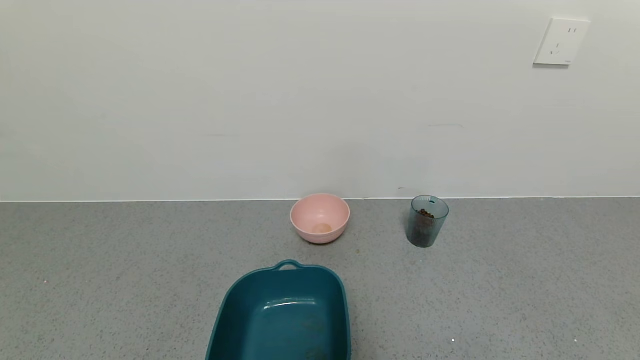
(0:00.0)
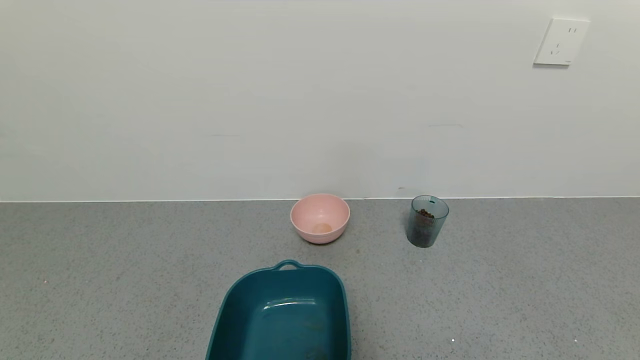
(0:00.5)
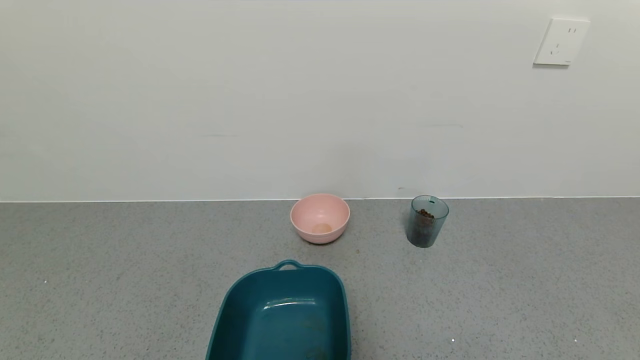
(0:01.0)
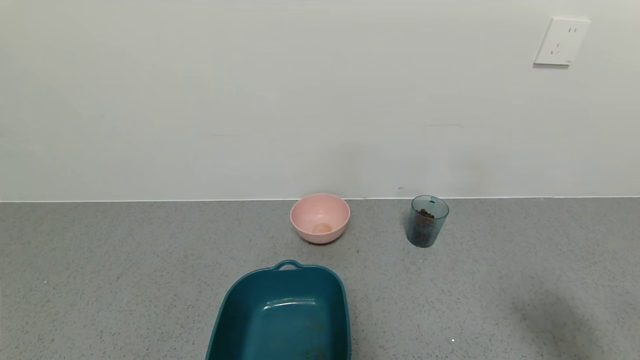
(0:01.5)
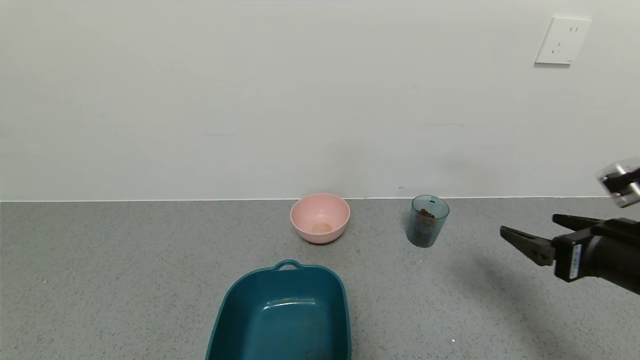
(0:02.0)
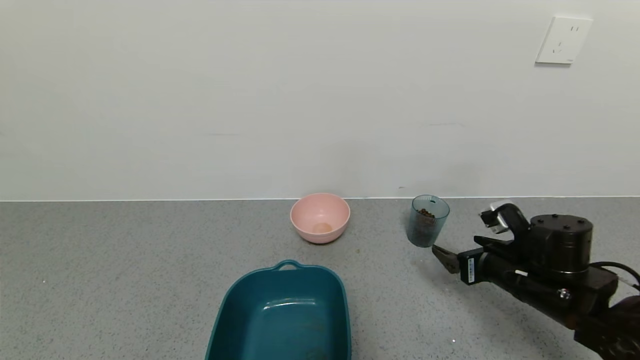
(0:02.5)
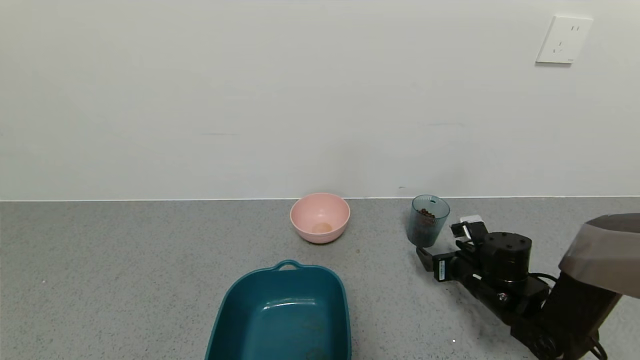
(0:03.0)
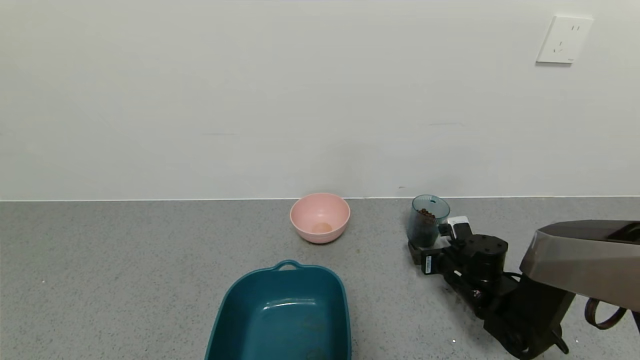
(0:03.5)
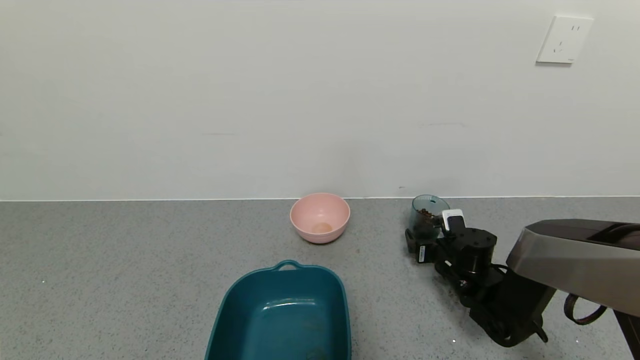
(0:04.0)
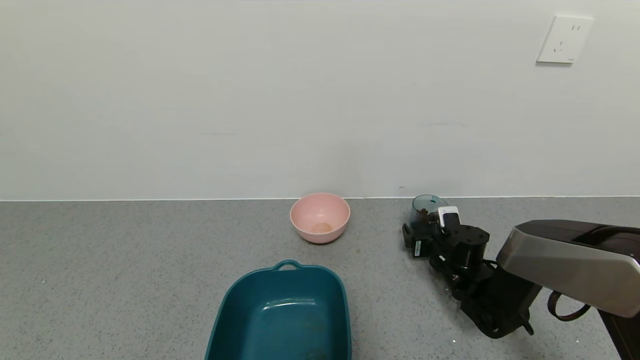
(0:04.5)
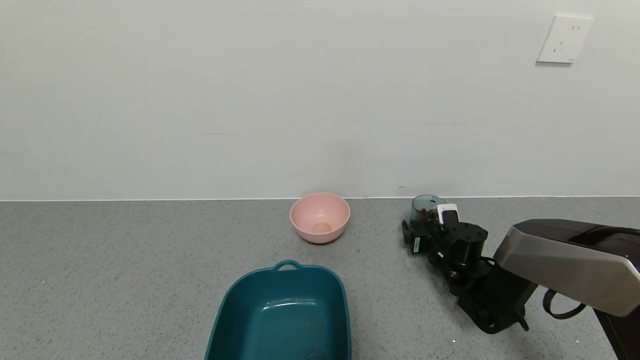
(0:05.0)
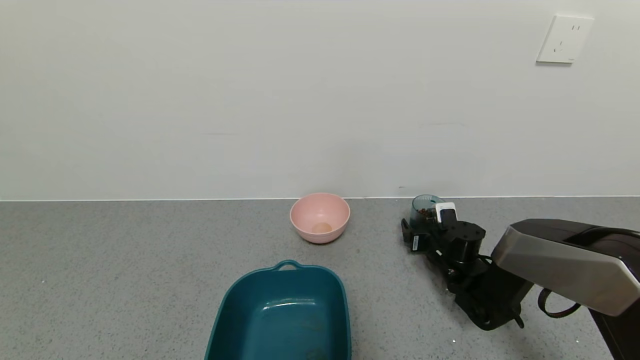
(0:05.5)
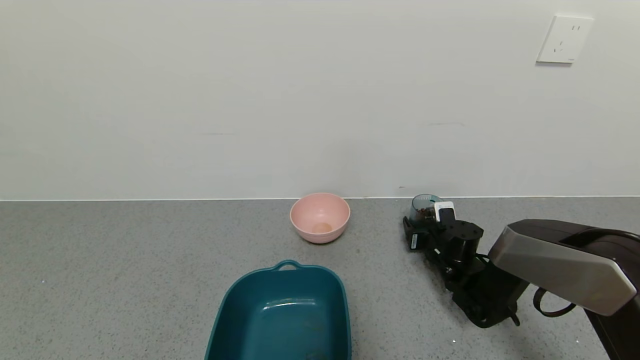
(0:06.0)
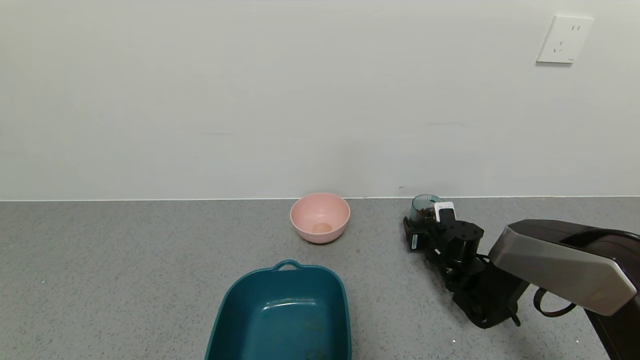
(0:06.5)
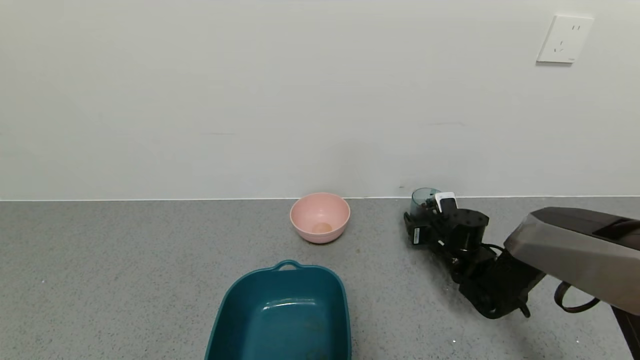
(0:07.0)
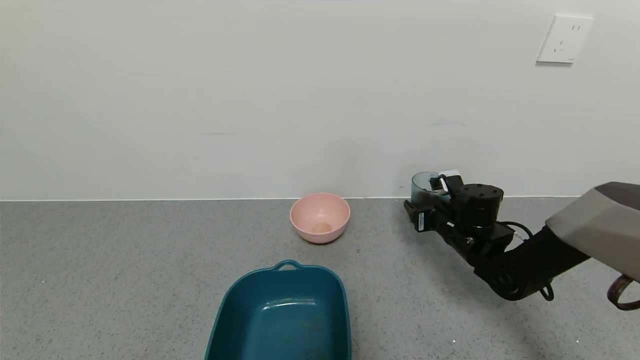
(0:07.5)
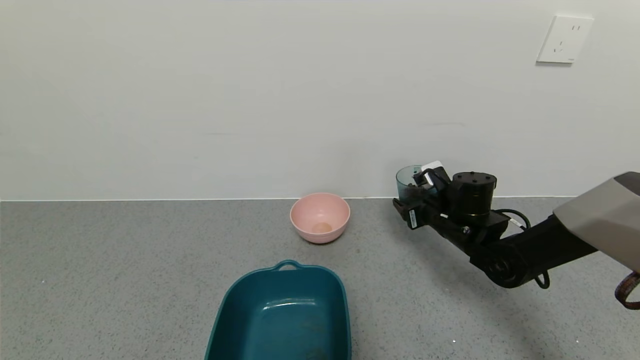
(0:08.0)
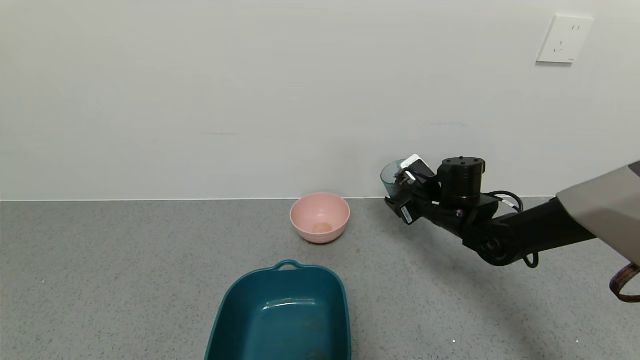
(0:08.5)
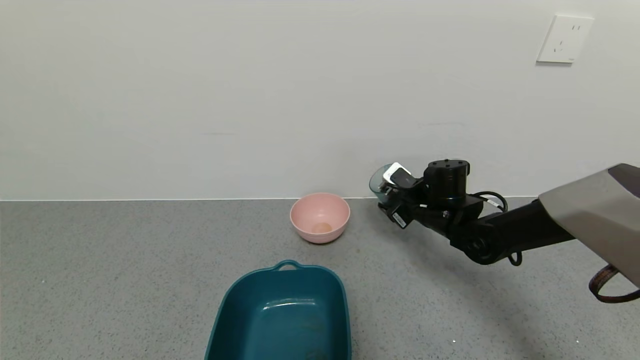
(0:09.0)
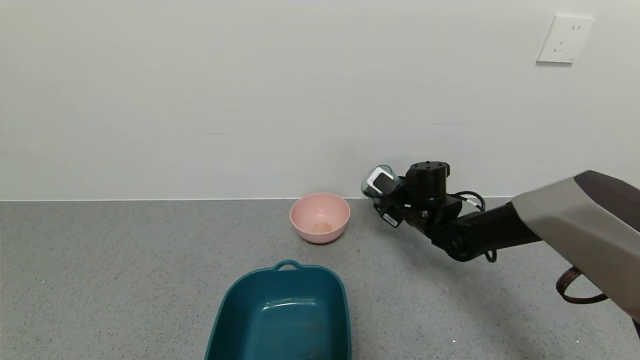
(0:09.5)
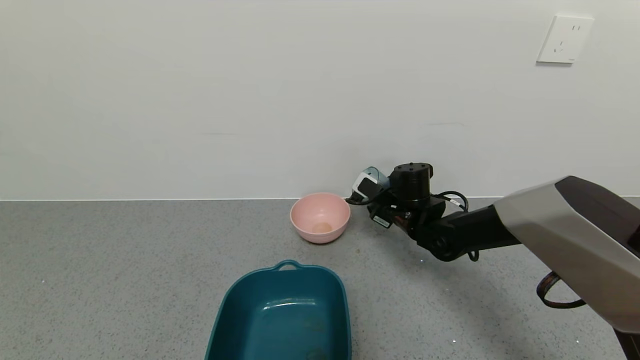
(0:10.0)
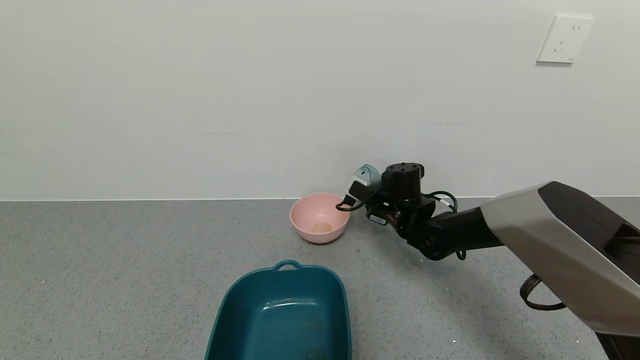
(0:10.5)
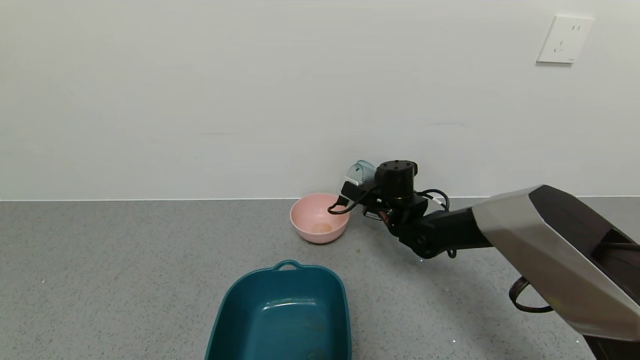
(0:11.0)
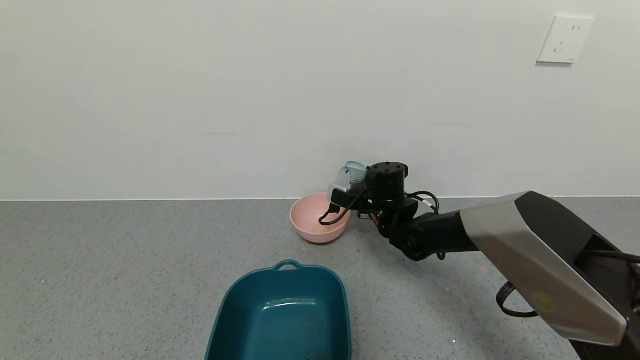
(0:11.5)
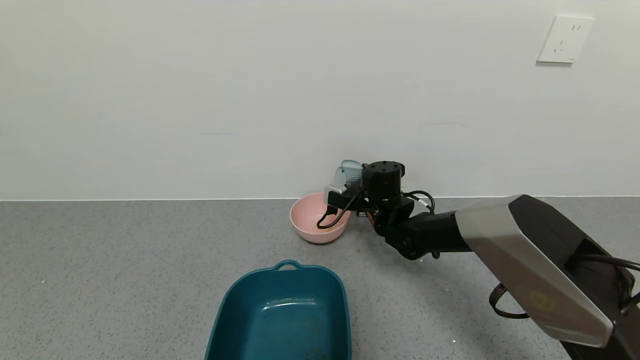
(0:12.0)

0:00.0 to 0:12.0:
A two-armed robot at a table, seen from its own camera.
Task of the whole recording: use a gripper to pick up the cup and pour the solid into a bowl or tray.
Step, 0:00.0 to 0:06.5: Grasp the glass of coffee beans with the right gripper.
0:00.0 to 0:02.0: The right gripper shifts roughly 25 cm forward and upward.
0:02.0 to 0:04.0: The right gripper is displaced downward, forward and to the left by about 25 cm.
0:04.0 to 0:06.0: The right gripper closes.
0:06.0 to 0:08.0: The right gripper travels upward by roughly 10 cm.
0:08.0 to 0:10.0: The right gripper moves to the left, roughly 5 cm.
0:10.0 to 0:12.0: The right gripper heads to the left, covering some 5 cm.

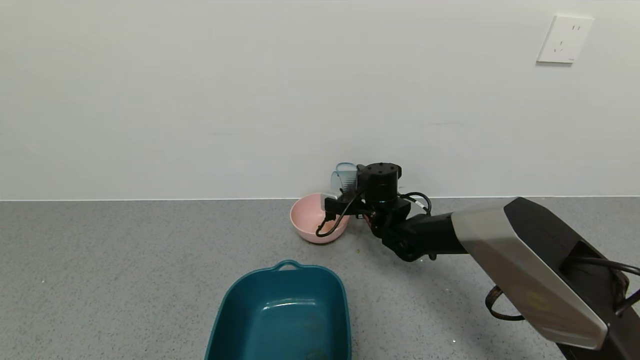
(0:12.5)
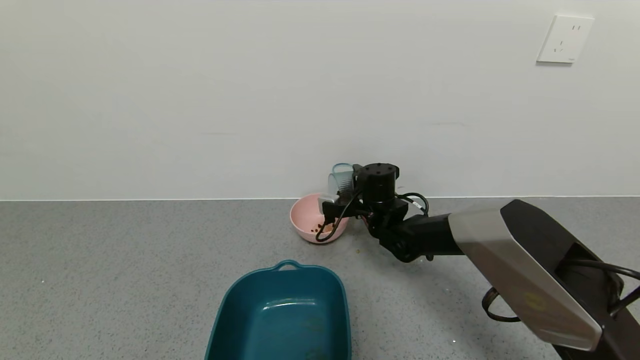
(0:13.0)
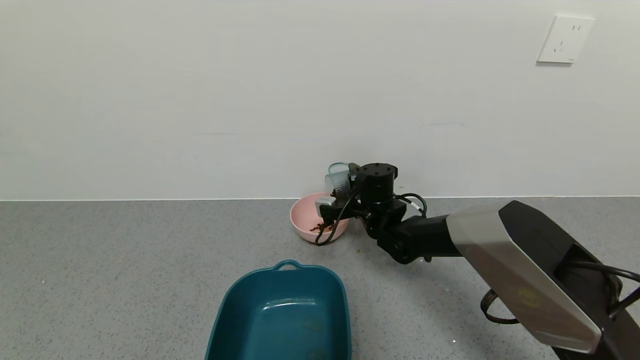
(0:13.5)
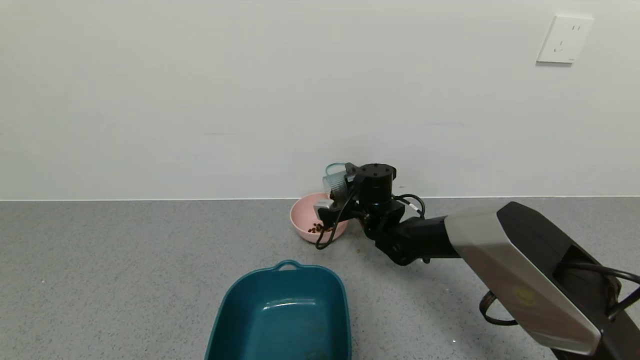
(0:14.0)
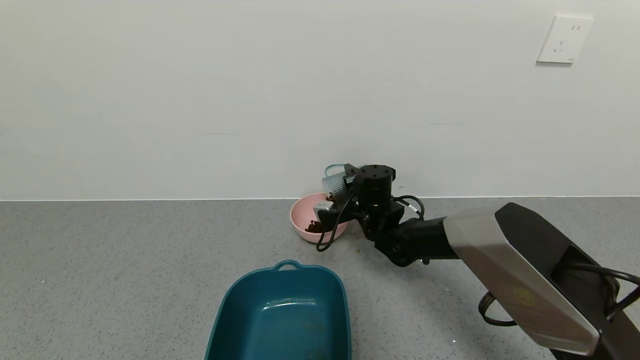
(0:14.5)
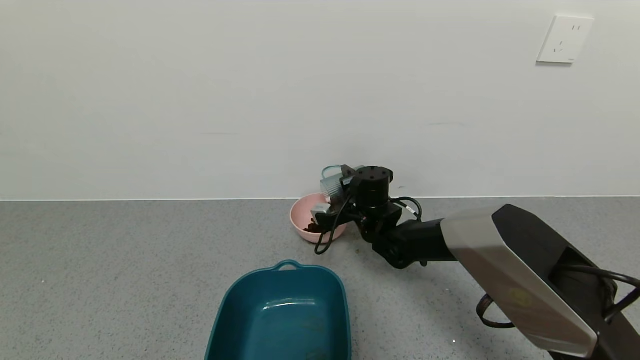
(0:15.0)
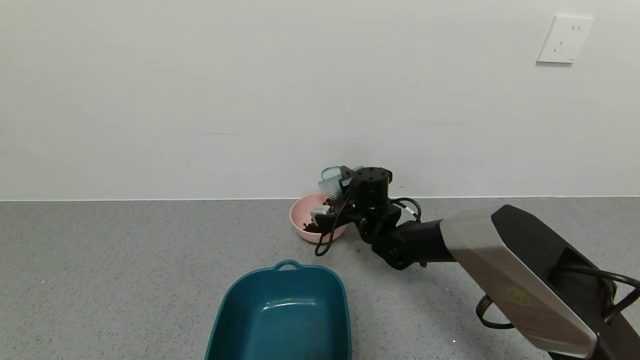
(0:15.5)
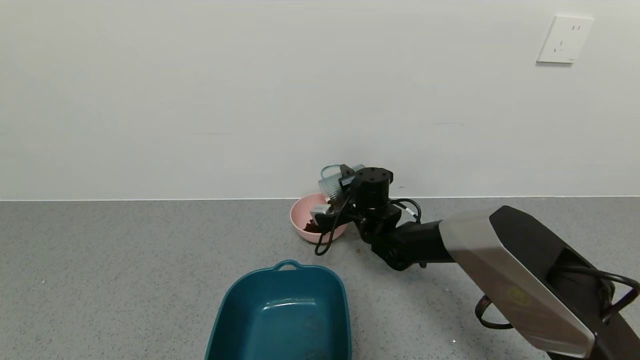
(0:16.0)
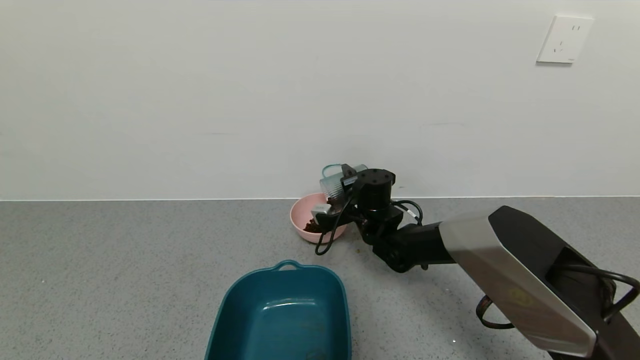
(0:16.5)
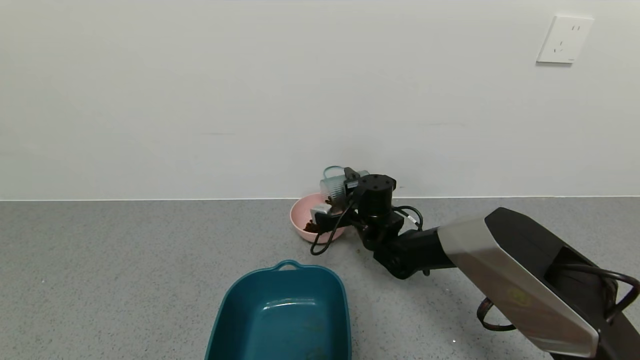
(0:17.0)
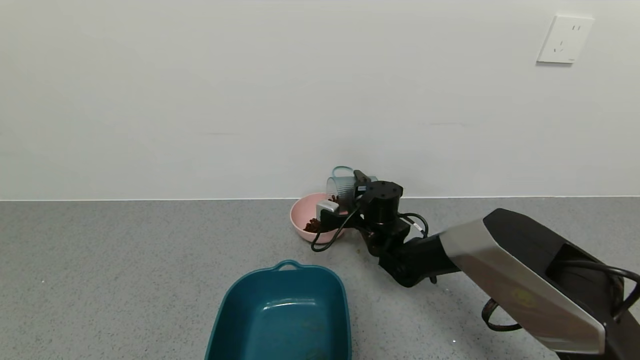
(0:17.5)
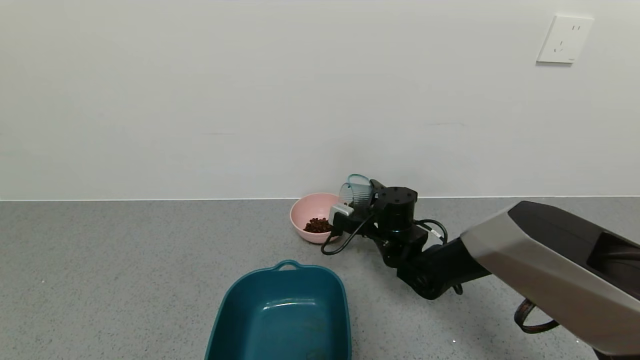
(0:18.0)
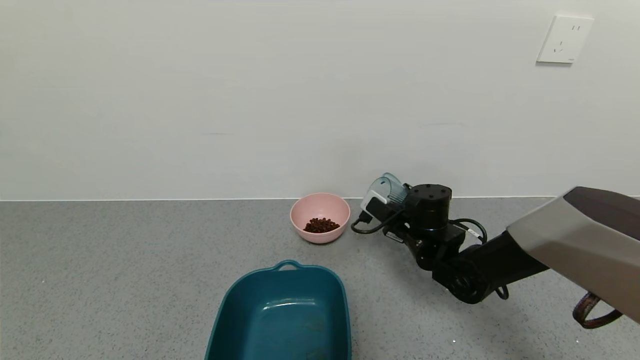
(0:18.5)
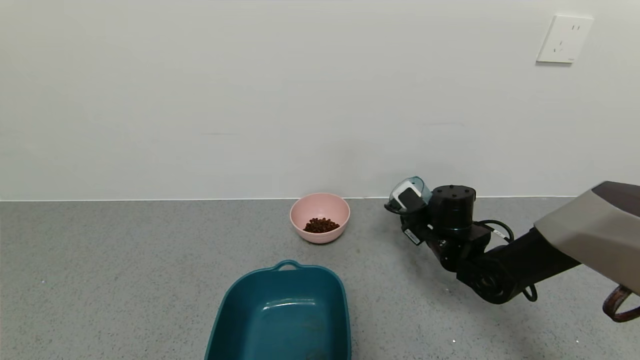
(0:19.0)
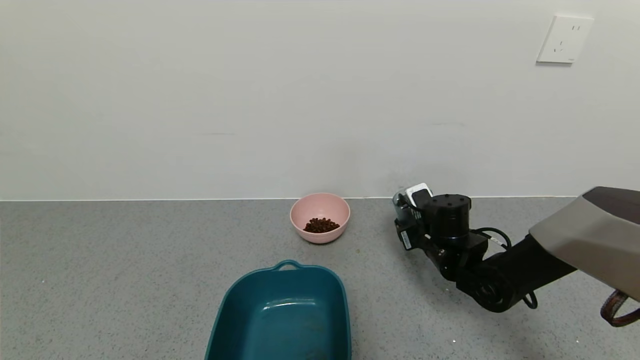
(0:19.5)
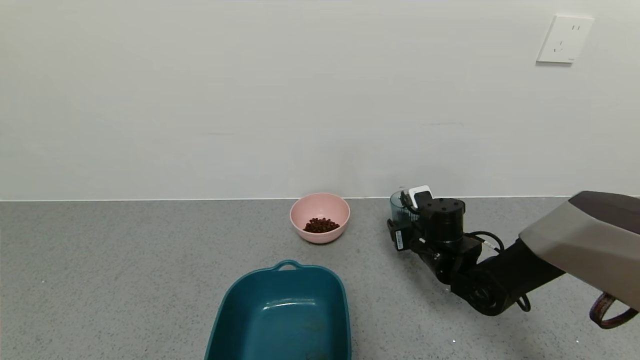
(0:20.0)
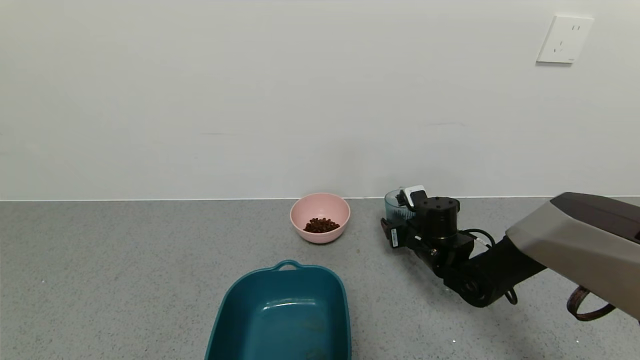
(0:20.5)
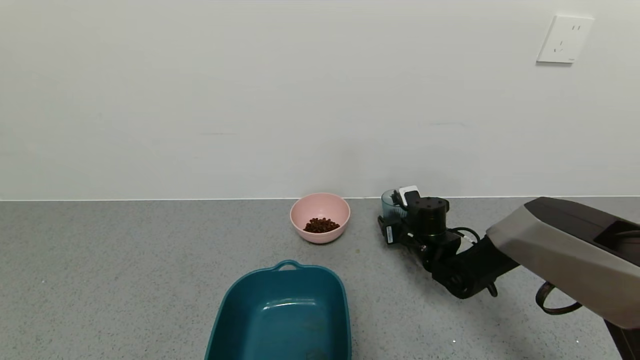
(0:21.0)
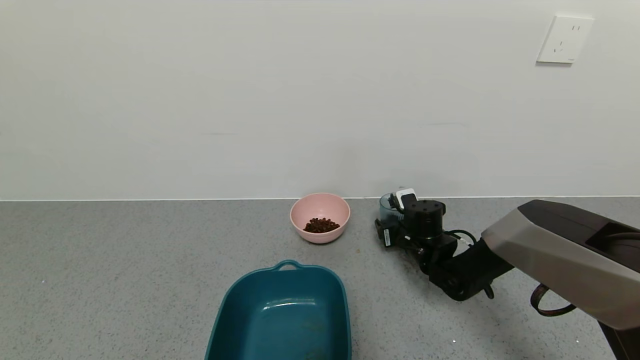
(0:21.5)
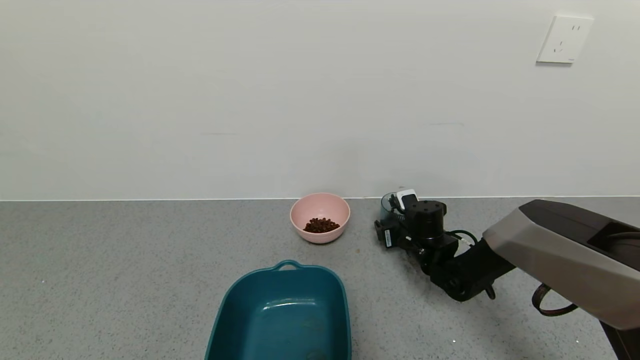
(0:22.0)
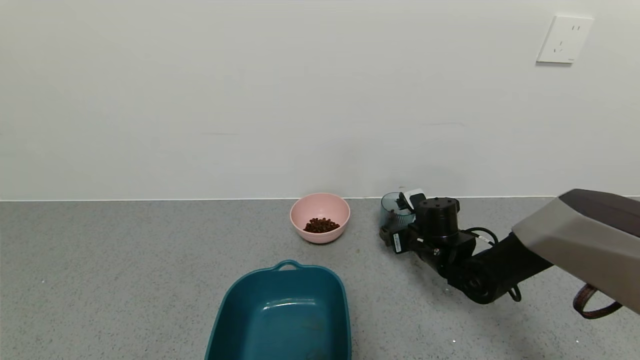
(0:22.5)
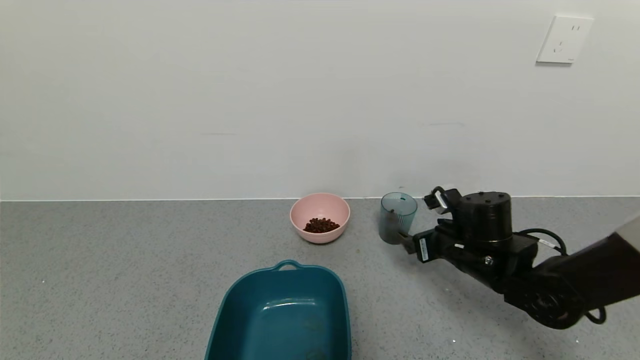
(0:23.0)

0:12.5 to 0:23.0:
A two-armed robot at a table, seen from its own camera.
Task of the whole recording: use a gripper to pick up the cup and pour the solid into a bowl or tray.
Step, 0:12.5 to 0:18.5: Pour the coffee beans into the pink bowl with the right gripper.
Step, 0:19.0 to 0:22.5: Place the glass cup with the right gripper.
0:12.5 to 0:14.5: There are only small adjustments of the grippers.
0:14.5 to 0:16.5: Both grippers stay about where they are.
0:16.5 to 0:19.0: The right gripper heads to the right and backward, covering roughly 15 cm.
0:19.0 to 0:21.0: The right gripper shifts by approximately 5 cm.
0:21.0 to 0:23.0: The right gripper moves backward and upward, roughly 10 cm, and opens up.
